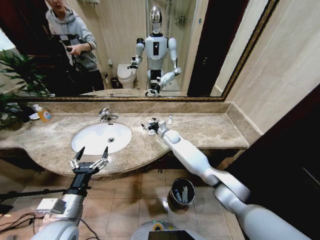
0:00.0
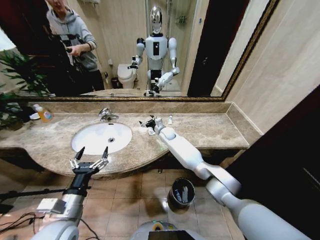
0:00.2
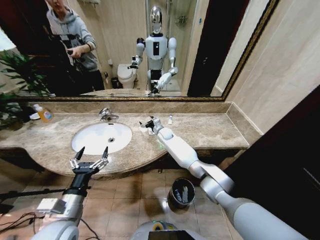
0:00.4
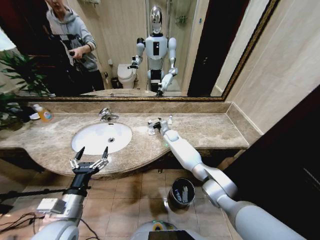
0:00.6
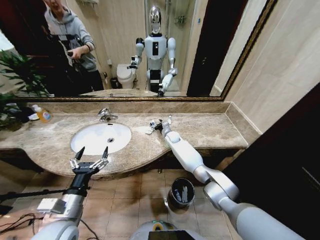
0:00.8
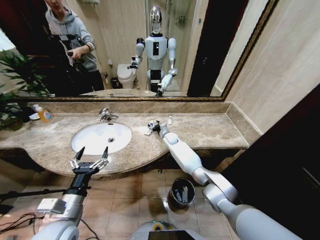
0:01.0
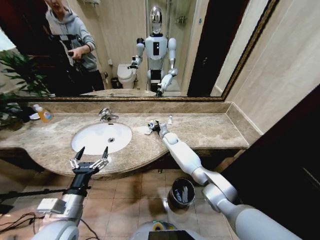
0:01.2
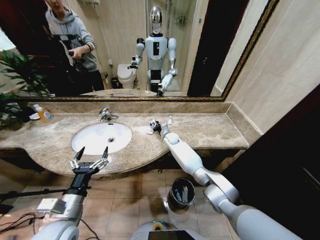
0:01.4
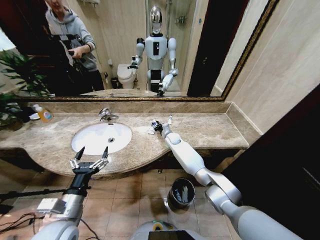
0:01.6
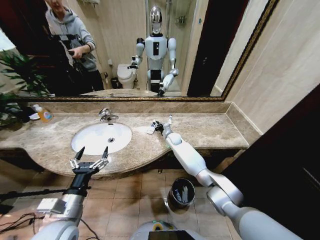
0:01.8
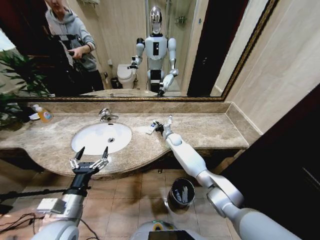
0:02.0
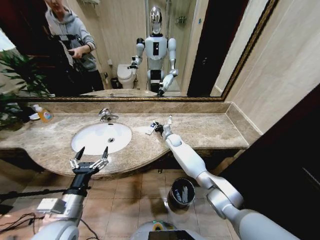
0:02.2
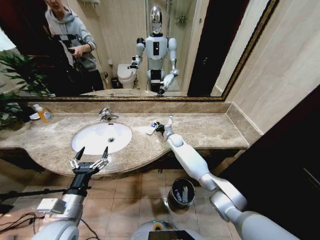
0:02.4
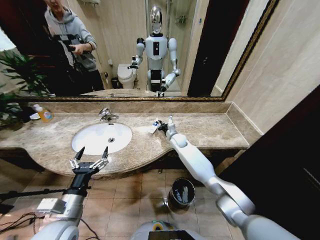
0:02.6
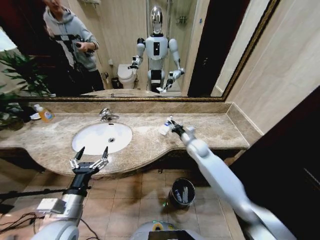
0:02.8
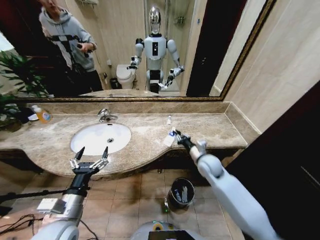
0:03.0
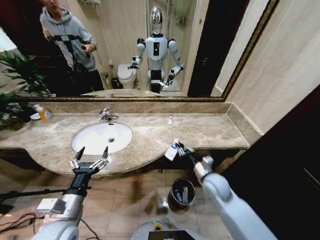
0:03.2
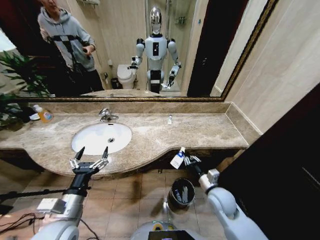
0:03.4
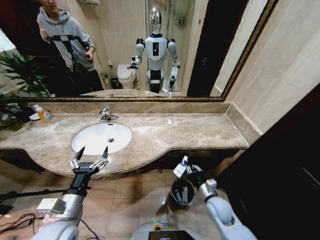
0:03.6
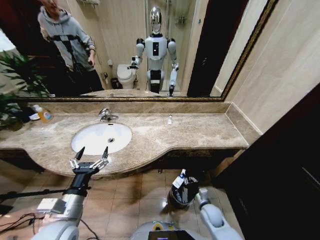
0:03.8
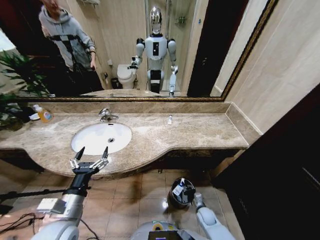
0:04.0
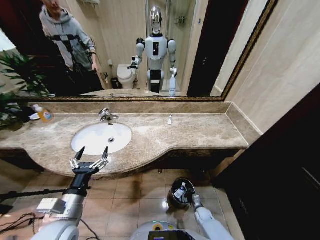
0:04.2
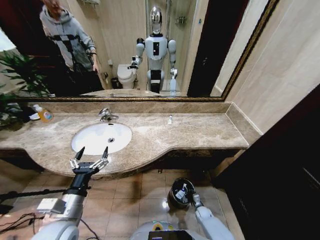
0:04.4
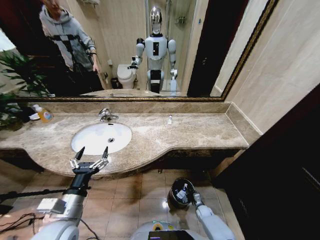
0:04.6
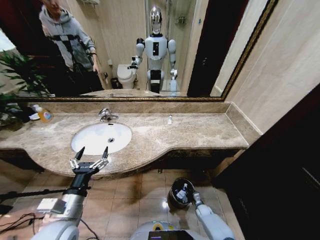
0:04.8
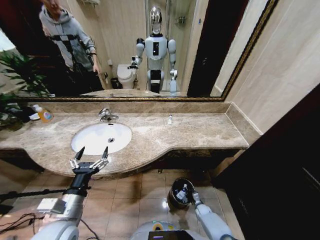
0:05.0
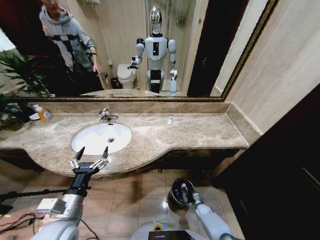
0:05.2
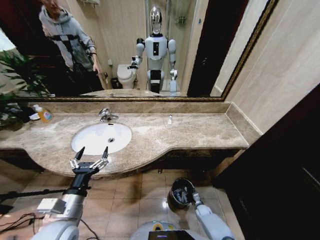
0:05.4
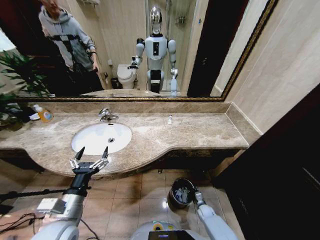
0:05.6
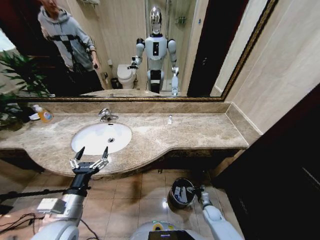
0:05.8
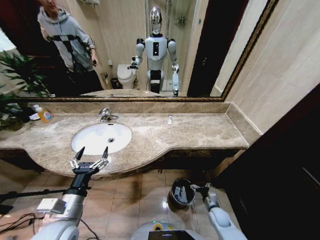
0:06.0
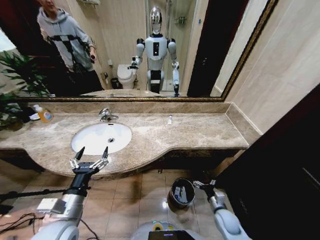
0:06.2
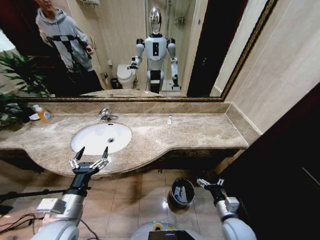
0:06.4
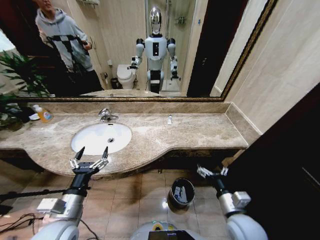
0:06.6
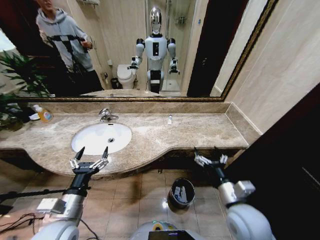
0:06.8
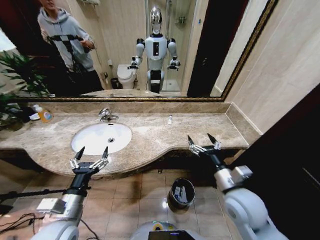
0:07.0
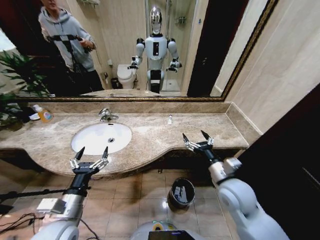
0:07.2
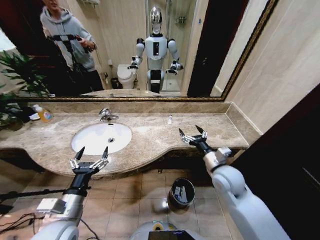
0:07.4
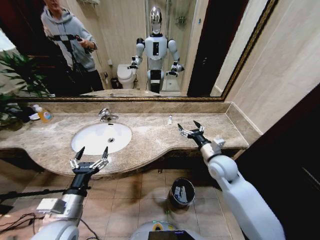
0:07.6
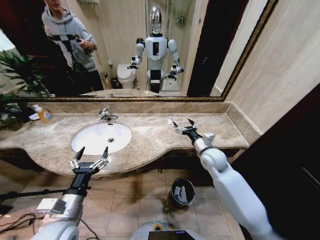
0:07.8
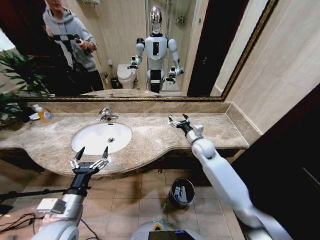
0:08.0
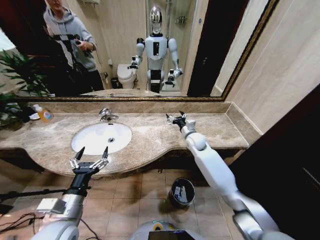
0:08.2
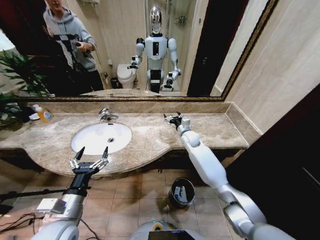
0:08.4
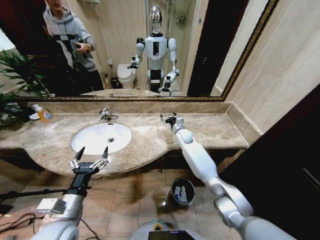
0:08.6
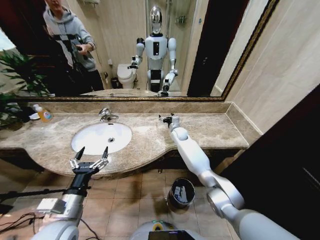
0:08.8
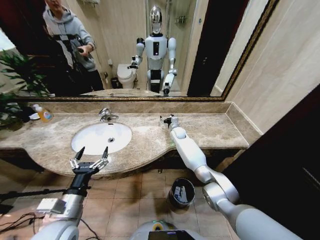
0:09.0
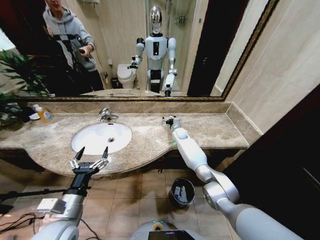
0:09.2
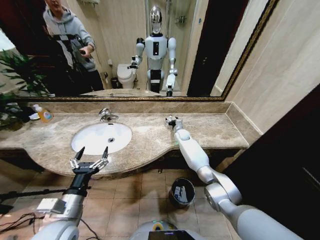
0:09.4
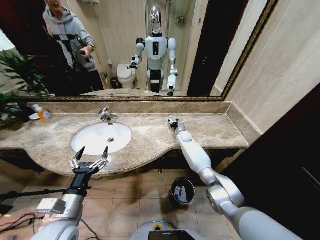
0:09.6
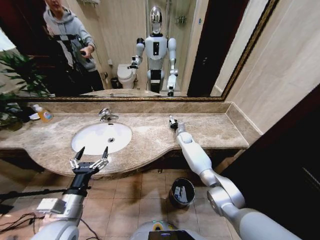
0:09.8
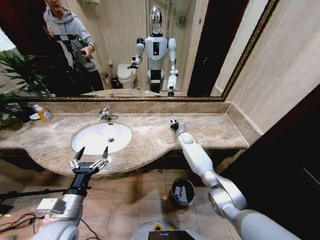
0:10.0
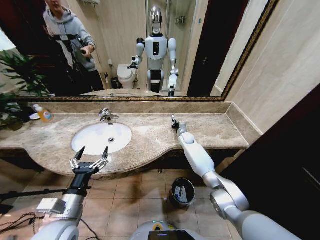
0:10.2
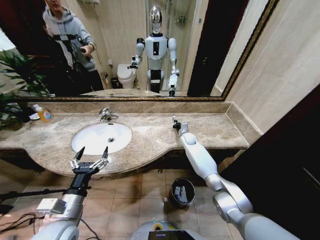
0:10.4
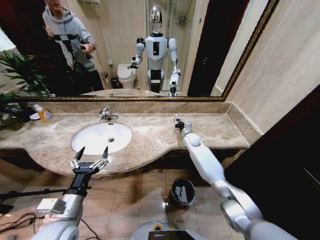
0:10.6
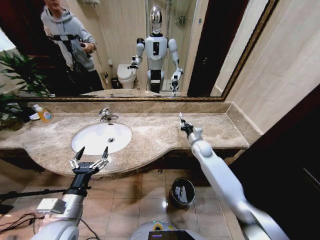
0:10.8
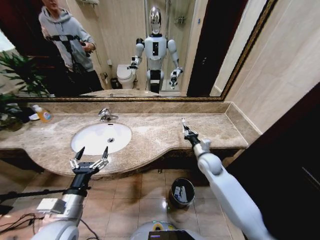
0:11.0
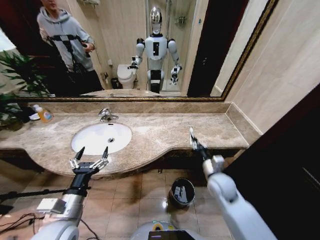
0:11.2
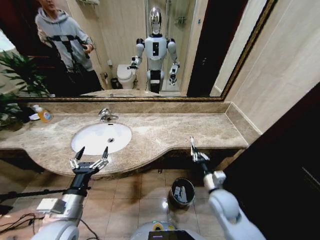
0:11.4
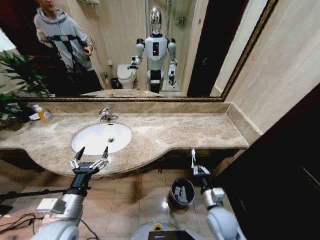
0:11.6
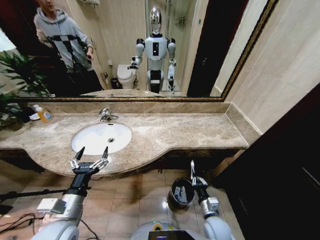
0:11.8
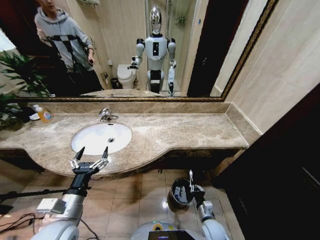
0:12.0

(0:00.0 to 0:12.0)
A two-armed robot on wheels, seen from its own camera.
Task of the whole recording: Pick up the trash from the sink and place it in the trash bin.
0:00.0 - 0:01.6: The right gripper ends up about 5 cm from where it was, and closes.
0:01.6 - 0:03.0: The right gripper heads backward and to the right, covering some 25 cm.
0:03.0 - 0:04.4: The right gripper travels downward by about 40 cm.
0:04.4 - 0:06.0: The right gripper travels upward by some 10 cm, and opens its fingers.
0:06.0 - 0:07.6: The right gripper travels upward by about 35 cm.
0:07.6 - 0:09.0: The right gripper heads forward and to the left, covering about 30 cm.
0:09.0 - 0:10.4: The right gripper moves to the right, roughly 5 cm, and closes up.
0:10.4 - 0:12.0: The right gripper travels backward and downward by about 50 cm.

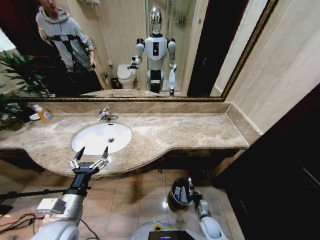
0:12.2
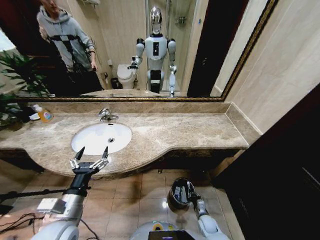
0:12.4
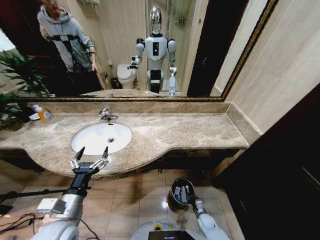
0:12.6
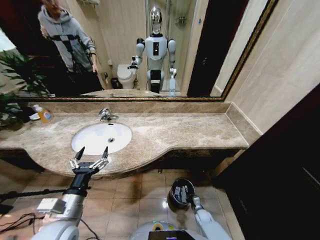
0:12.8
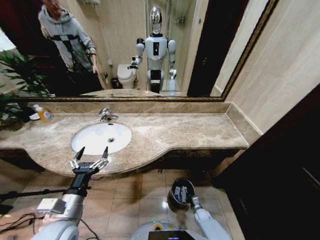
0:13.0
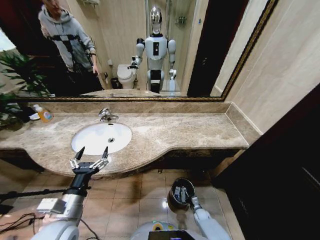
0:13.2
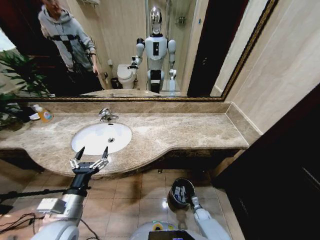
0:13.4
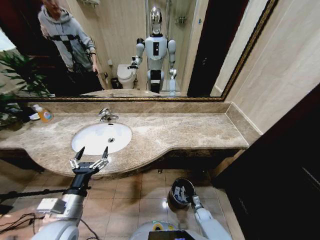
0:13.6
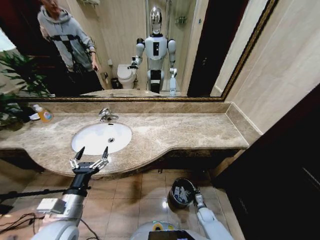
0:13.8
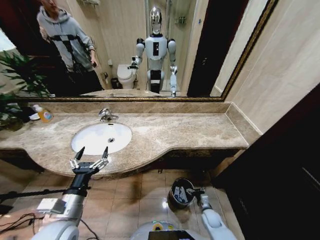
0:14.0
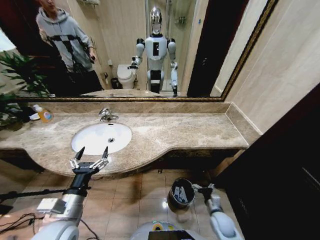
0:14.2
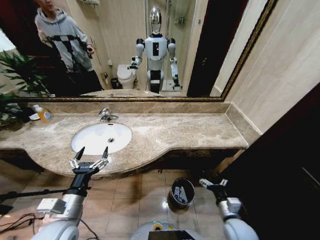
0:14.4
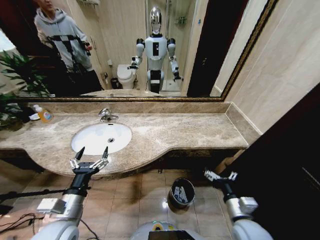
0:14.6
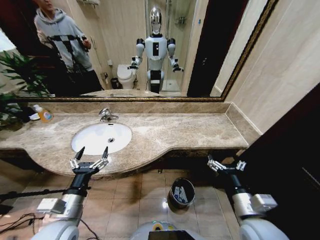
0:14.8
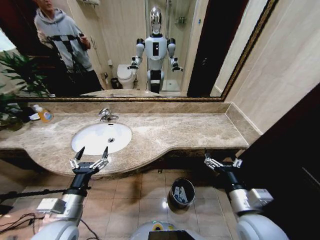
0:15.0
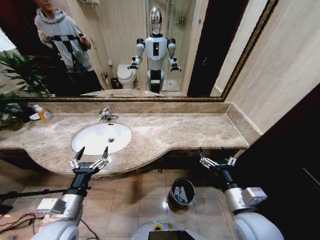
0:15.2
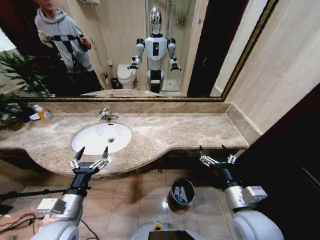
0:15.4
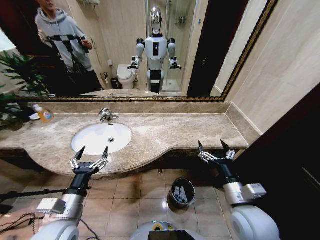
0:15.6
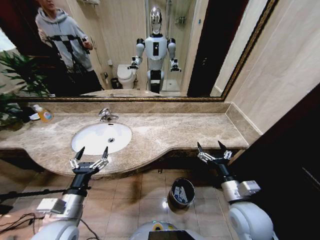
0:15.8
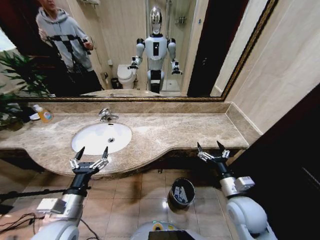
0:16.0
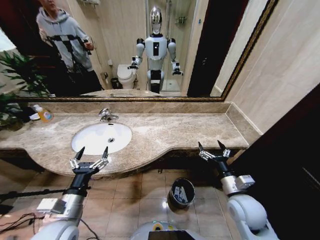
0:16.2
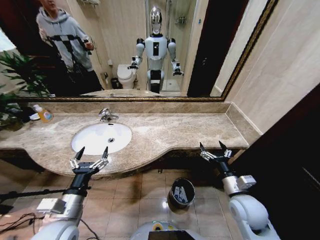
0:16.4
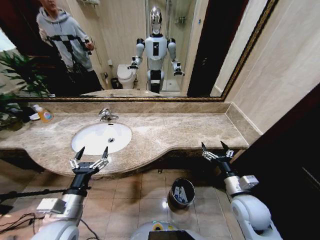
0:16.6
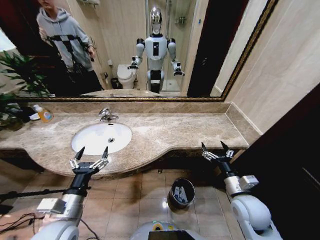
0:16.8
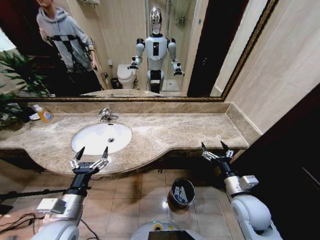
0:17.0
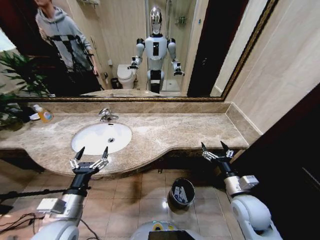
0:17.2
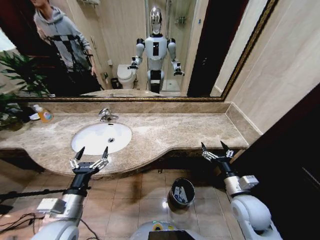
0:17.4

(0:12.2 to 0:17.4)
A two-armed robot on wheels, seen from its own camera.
Task of the whole recording: Pick up the trash from the sink and place it in the trash bin.
0:12.2 - 0:14.0: The right gripper goes downward and returns, about 10 cm each way, and opens its fingers.
0:14.0 - 0:15.6: The right gripper heads upward, covering about 35 cm.
0:15.6 - 0:17.4: The right gripper changes place by about 10 cm.
